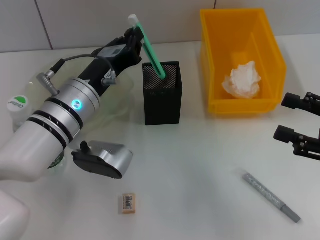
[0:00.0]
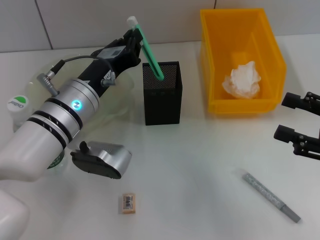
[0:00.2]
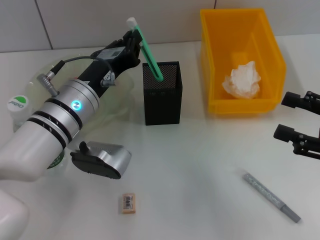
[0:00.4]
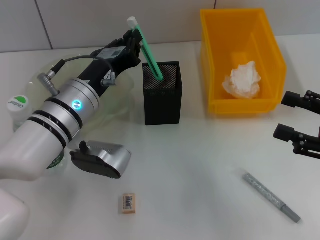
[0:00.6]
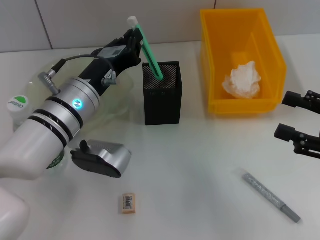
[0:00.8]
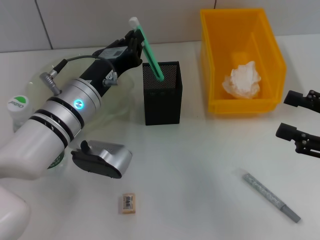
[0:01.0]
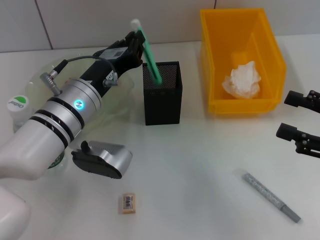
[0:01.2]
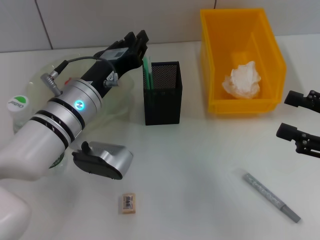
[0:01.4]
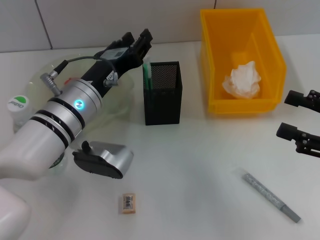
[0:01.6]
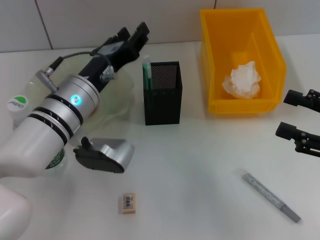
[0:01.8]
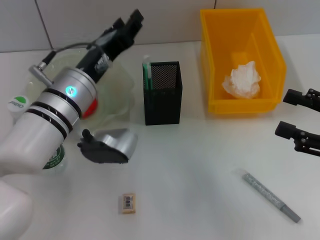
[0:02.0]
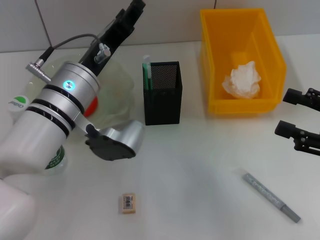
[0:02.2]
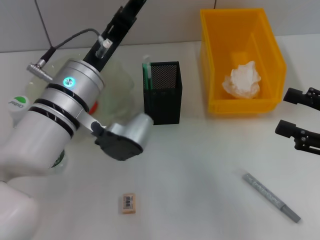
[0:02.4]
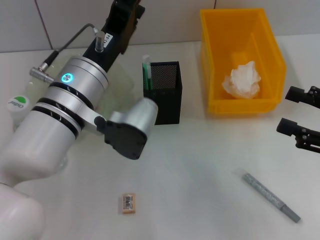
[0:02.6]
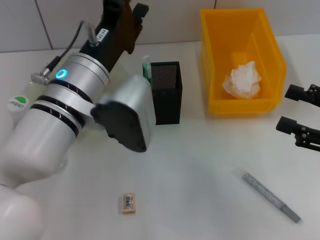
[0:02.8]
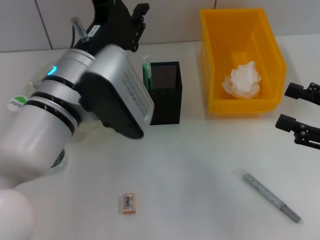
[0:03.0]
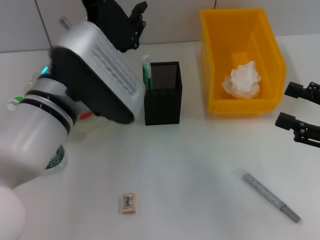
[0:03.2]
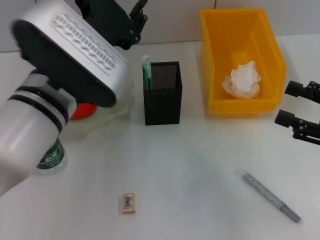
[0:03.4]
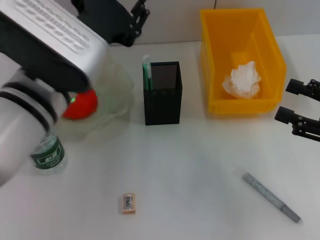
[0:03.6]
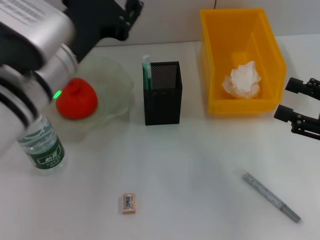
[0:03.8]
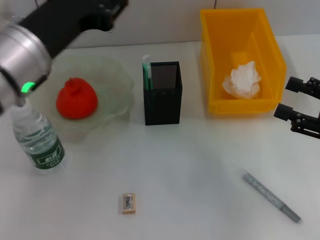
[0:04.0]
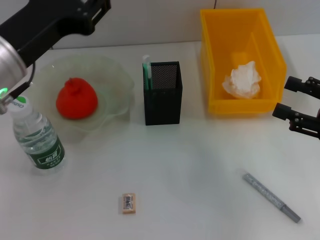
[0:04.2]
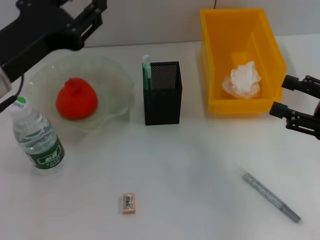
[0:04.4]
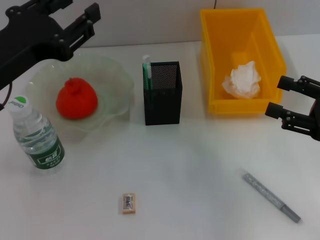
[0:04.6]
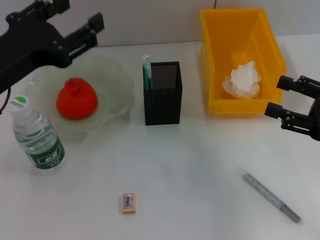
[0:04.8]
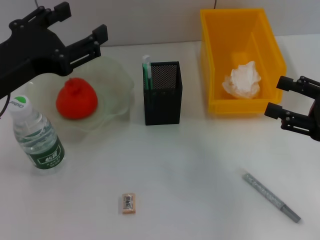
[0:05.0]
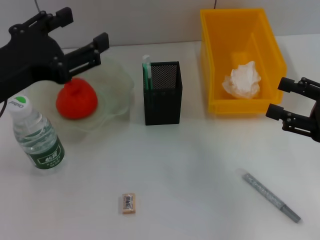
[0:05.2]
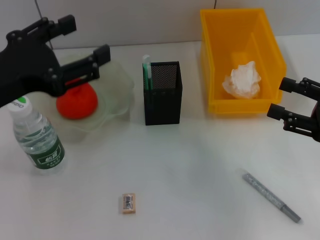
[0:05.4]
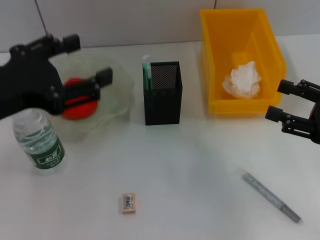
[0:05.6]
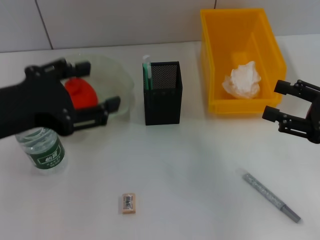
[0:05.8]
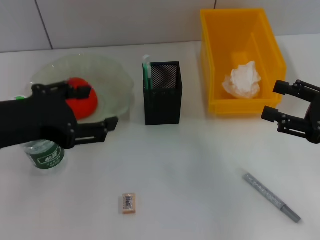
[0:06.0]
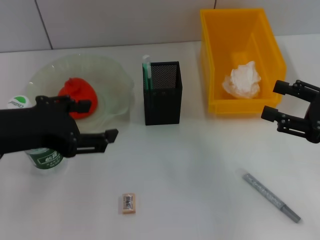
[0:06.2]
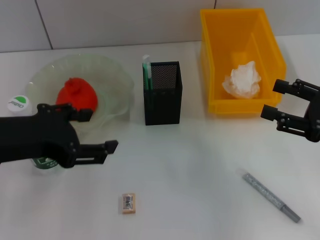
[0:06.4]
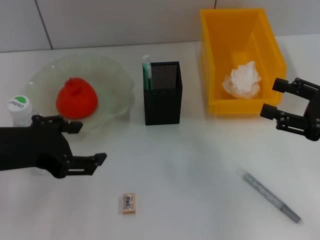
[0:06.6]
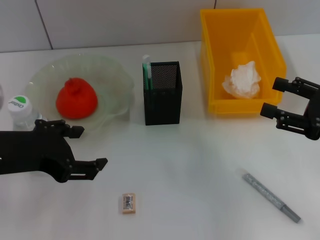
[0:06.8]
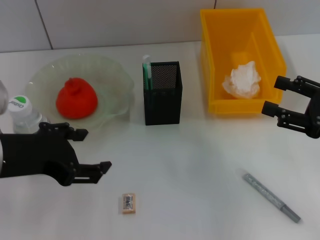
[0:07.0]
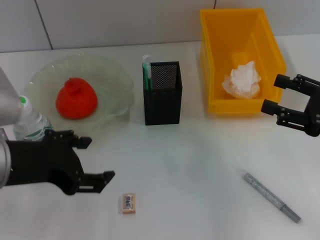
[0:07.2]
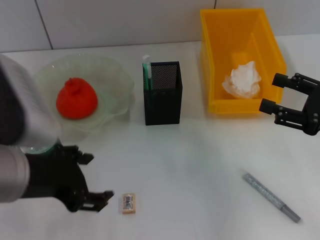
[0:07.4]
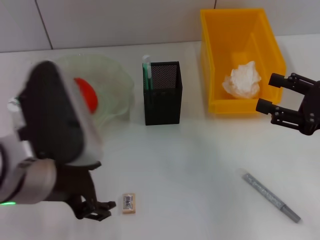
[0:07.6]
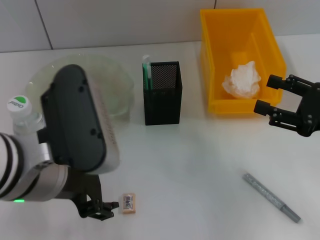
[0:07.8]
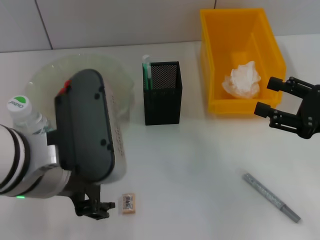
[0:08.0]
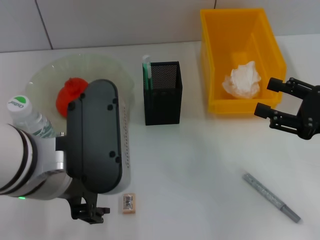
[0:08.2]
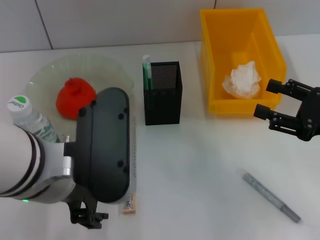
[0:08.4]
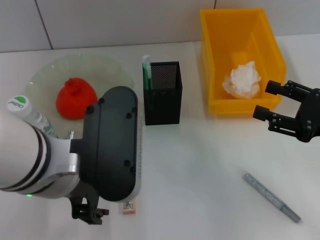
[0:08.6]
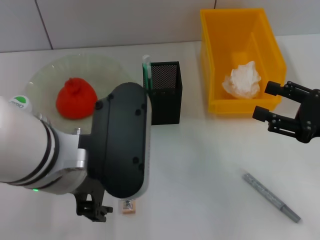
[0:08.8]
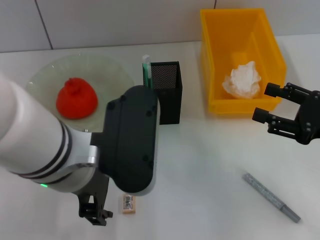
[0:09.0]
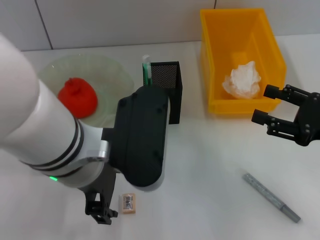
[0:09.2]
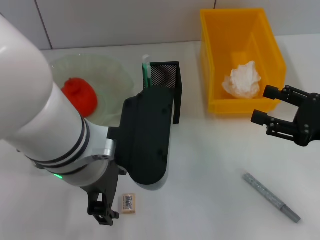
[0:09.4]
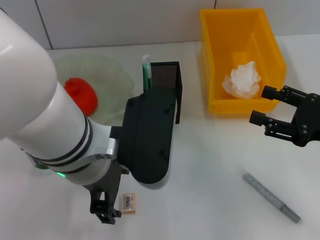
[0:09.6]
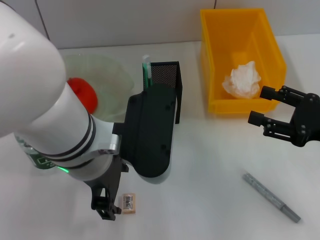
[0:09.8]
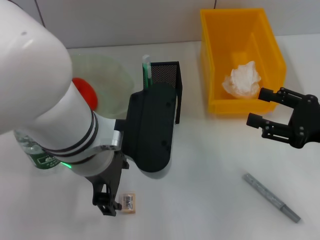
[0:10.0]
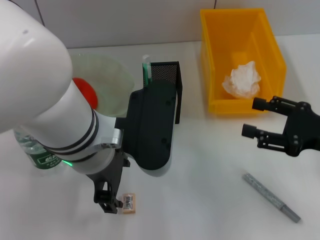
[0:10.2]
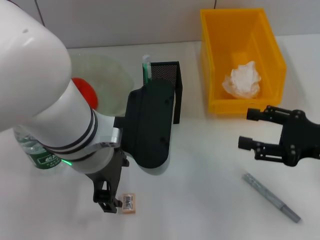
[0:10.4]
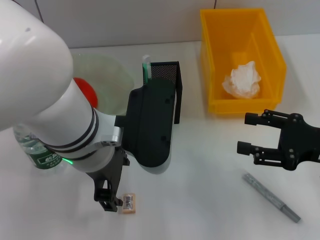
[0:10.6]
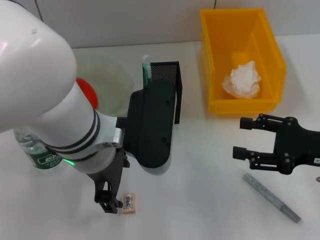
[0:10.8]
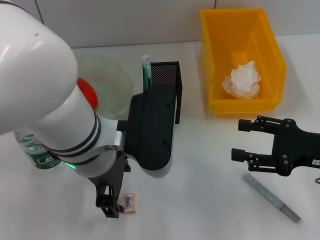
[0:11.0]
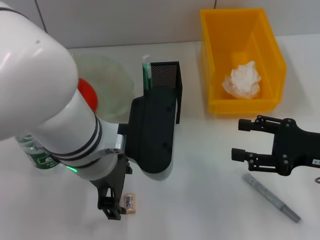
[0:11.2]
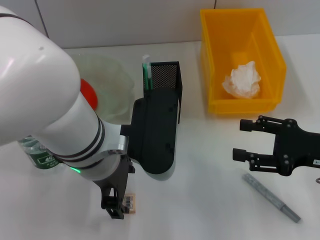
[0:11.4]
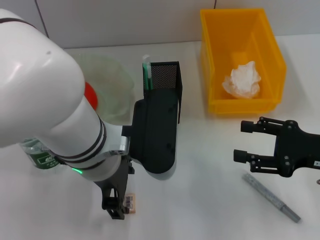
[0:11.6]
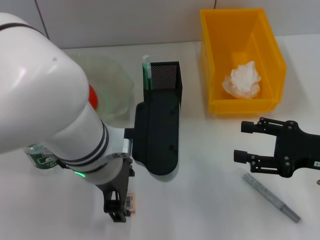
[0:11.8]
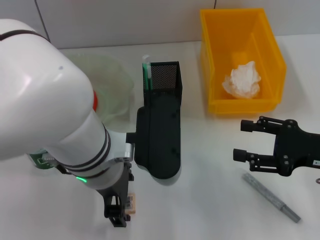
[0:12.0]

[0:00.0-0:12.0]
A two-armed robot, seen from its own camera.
0:00.0 to 0:01.6: Both grippers stay put.
0:01.6 to 0:03.0: The left gripper travels upward by roughly 5 cm.
0:03.0 to 0:04.4: The left gripper is displaced to the left by roughly 10 cm.
0:04.4 to 0:06.0: The left gripper opens up.
0:06.0 to 0:07.6: The left gripper goes roughly 5 cm to the right.

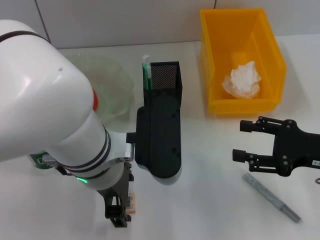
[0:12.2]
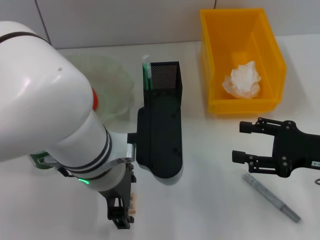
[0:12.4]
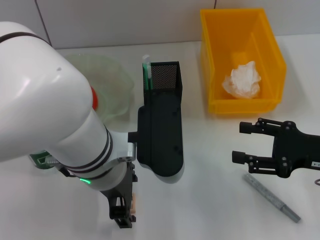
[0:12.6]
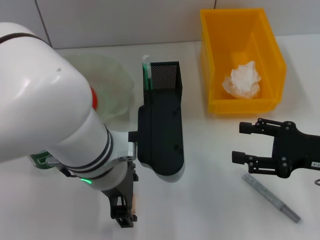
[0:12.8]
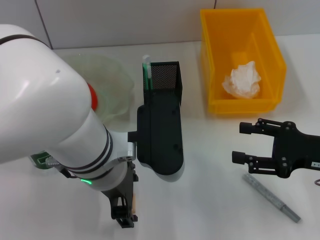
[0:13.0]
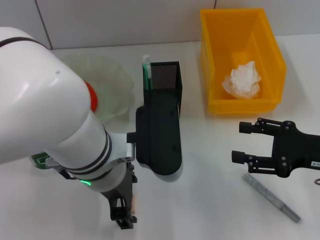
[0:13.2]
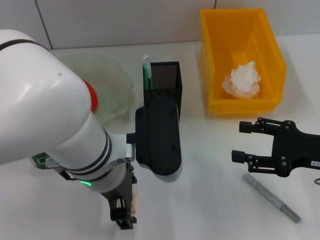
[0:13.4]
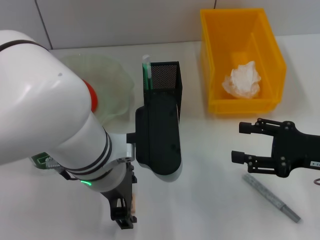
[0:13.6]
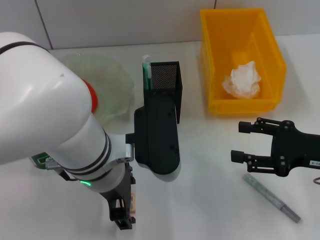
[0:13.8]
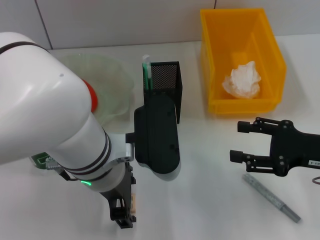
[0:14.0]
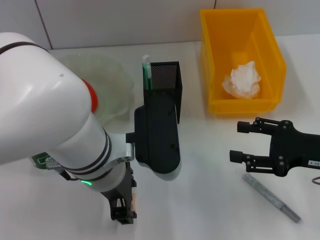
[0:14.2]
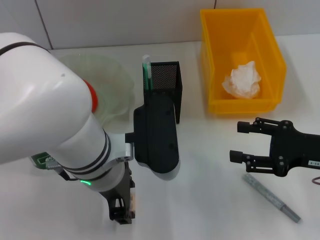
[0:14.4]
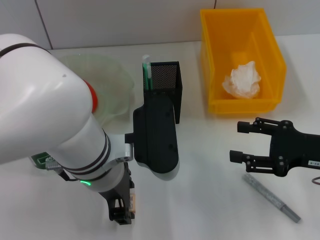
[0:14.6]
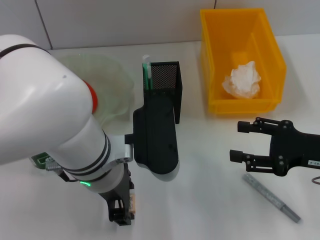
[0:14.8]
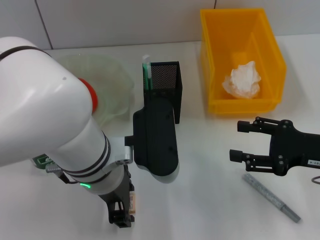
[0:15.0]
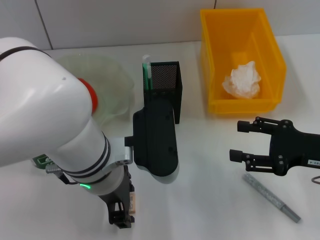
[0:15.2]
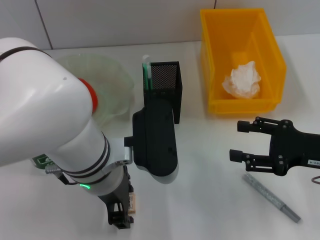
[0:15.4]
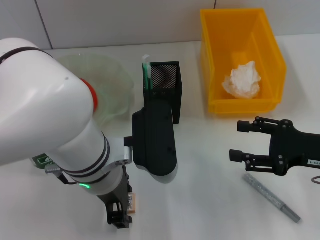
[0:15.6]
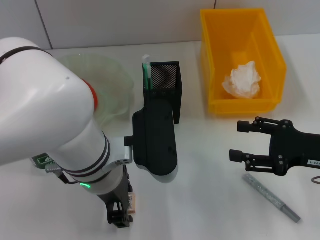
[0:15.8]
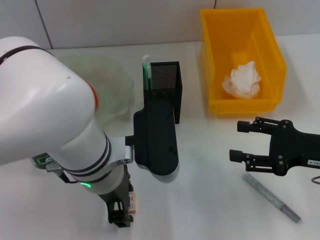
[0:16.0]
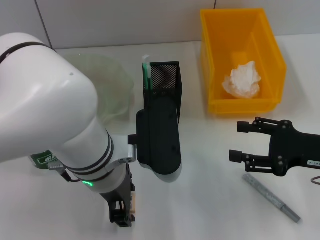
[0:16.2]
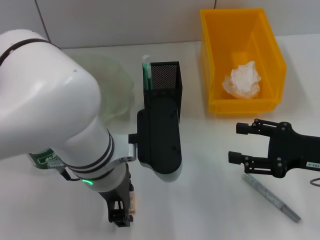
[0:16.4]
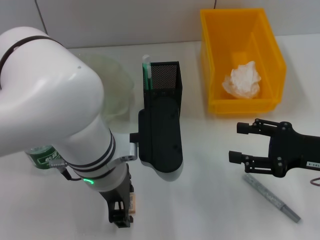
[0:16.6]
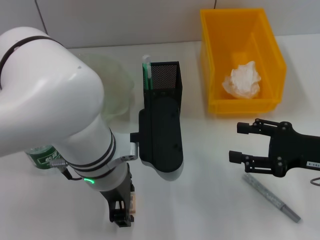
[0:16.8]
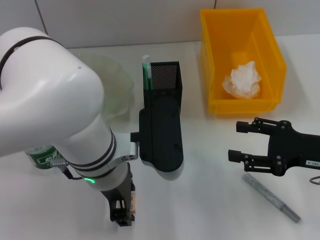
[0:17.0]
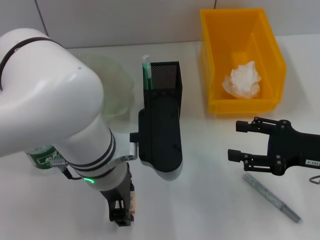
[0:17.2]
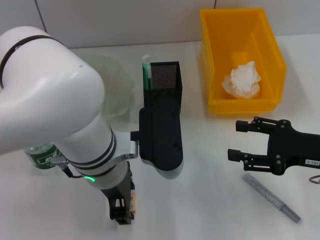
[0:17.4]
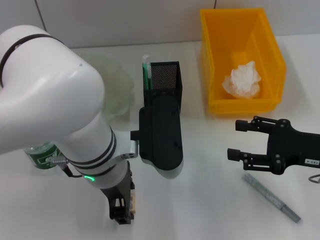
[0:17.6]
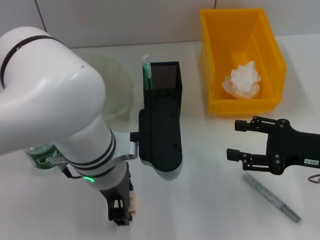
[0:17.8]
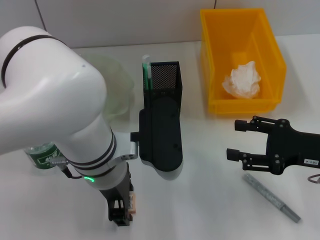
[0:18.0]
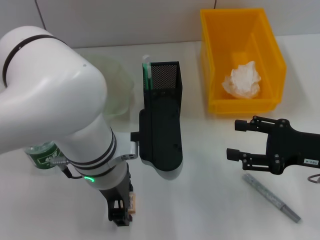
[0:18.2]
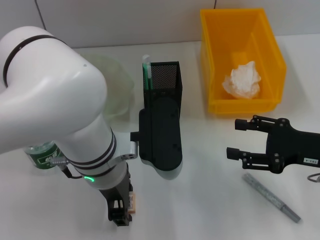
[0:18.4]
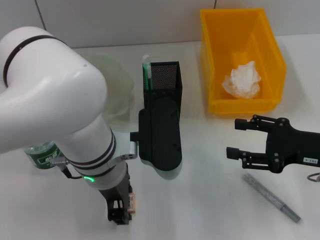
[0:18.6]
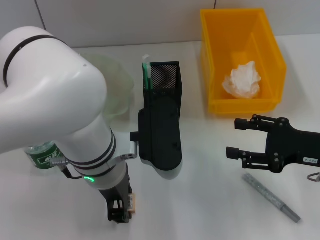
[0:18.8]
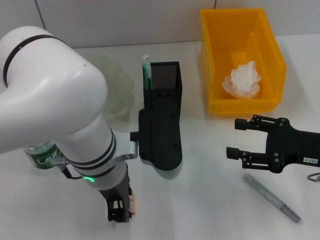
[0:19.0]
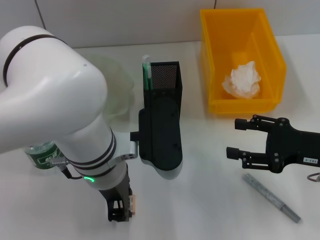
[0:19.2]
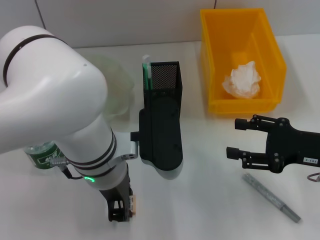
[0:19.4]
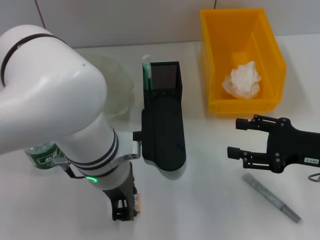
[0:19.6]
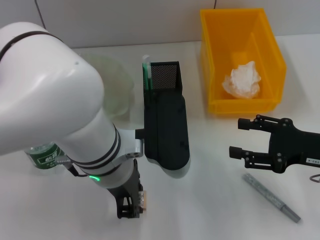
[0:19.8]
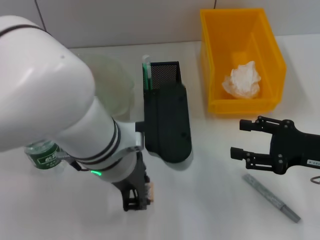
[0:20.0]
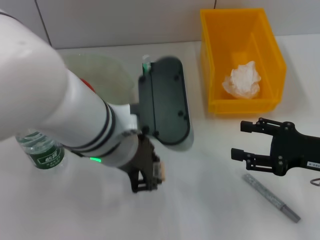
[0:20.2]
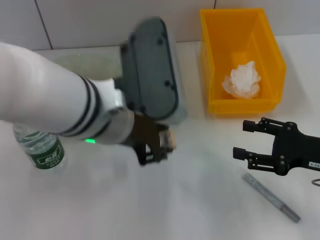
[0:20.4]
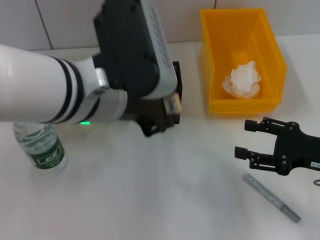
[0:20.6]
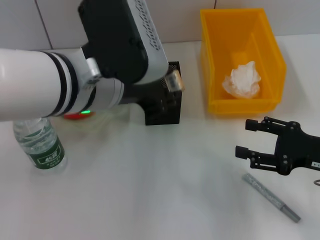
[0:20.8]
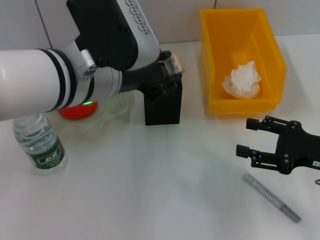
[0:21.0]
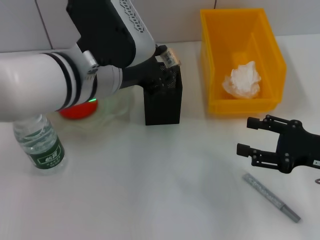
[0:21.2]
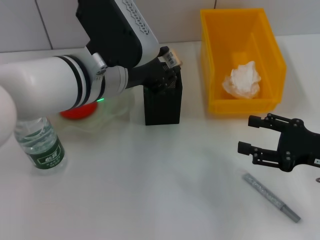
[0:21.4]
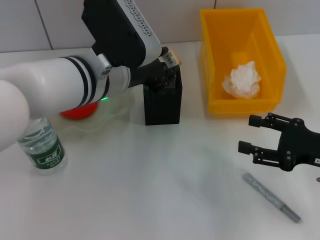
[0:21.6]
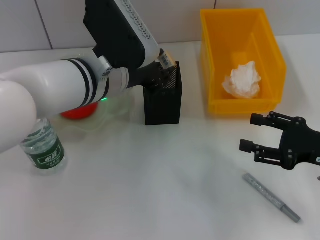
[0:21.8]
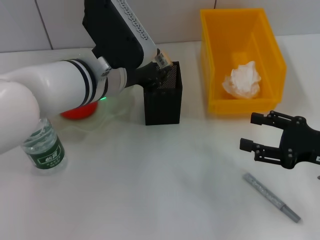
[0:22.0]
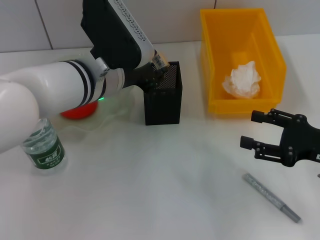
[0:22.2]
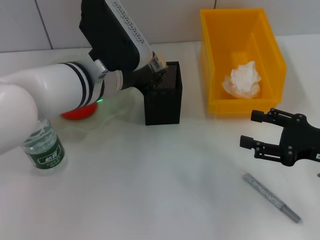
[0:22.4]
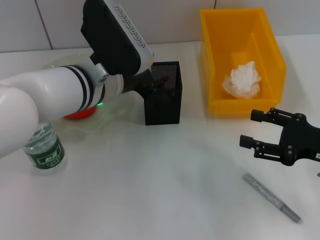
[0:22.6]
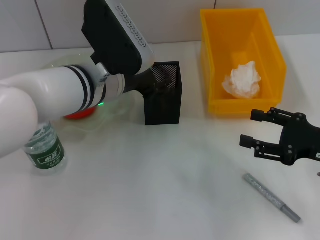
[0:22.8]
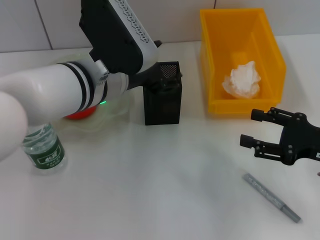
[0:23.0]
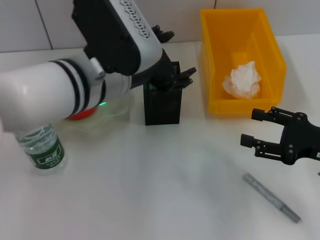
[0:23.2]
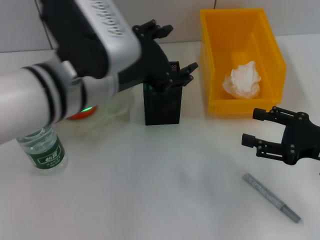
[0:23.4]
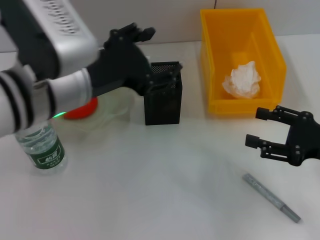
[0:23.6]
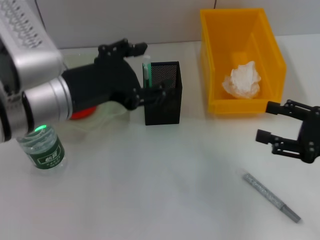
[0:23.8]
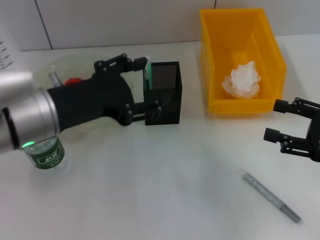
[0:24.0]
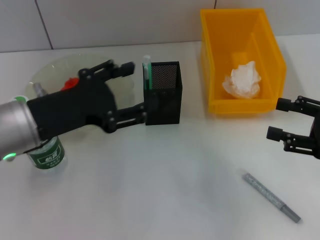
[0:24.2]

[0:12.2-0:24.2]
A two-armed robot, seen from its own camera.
Step, 0:12.2 to 0:19.2: Grab the eraser with the left hand.
Step, 0:19.4 to 0:22.8: Place the eraser into the pen holder with the left hand.
0:12.2 to 0:13.8: Neither gripper changes place.
0:13.8 to 0:18.2: Both grippers stay about where they are.
0:18.2 to 0:19.8: The two grippers keep their place.
0:19.8 to 0:21.2: The left gripper is displaced upward by some 5 cm.
0:21.2 to 0:22.6: The left gripper shifts approximately 5 cm downward.
0:22.6 to 0:24.2: The left gripper moves to the left and backward, about 15 cm, and opens its fingers.
